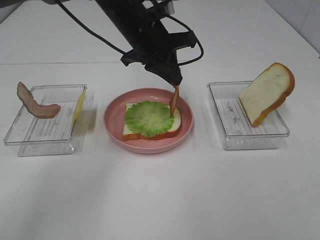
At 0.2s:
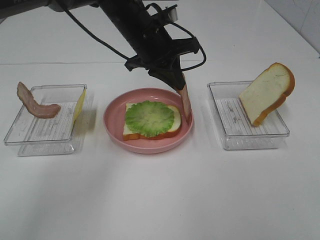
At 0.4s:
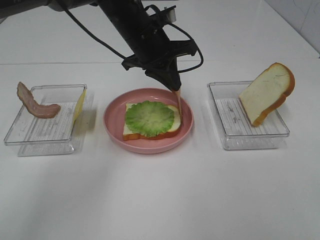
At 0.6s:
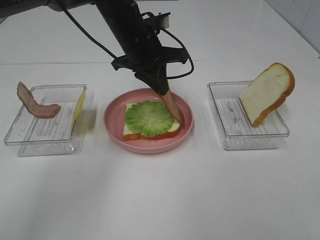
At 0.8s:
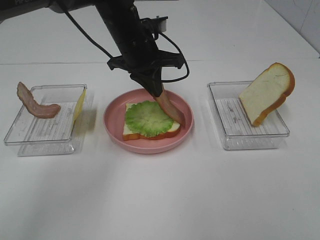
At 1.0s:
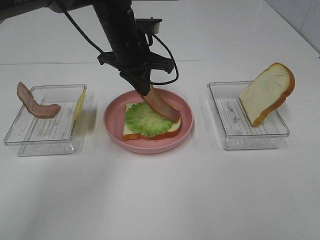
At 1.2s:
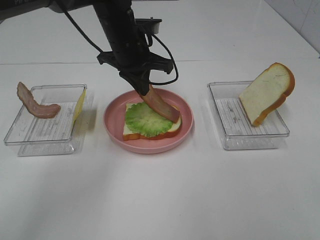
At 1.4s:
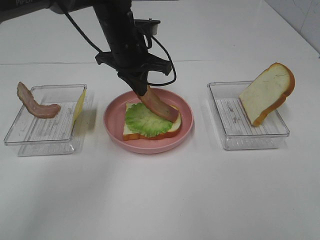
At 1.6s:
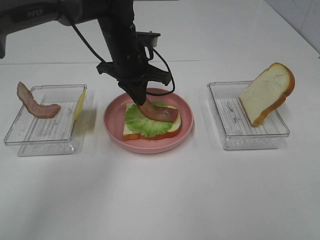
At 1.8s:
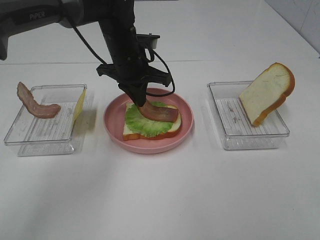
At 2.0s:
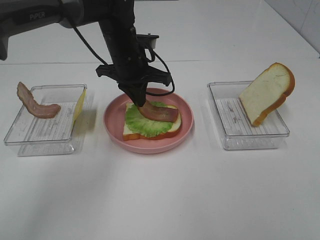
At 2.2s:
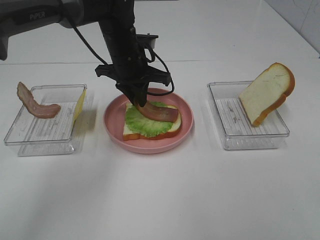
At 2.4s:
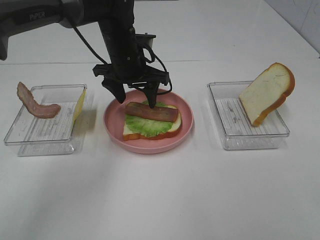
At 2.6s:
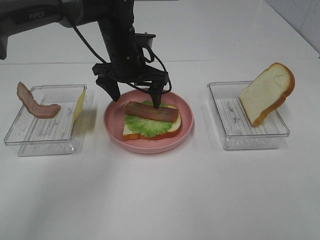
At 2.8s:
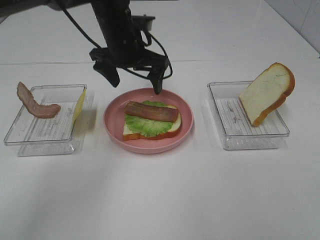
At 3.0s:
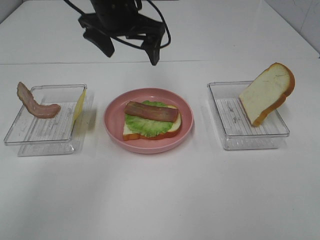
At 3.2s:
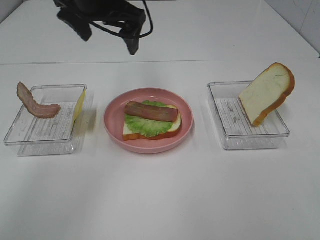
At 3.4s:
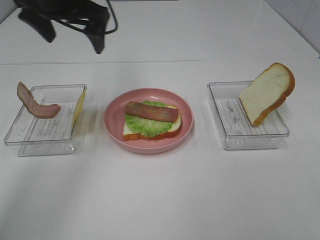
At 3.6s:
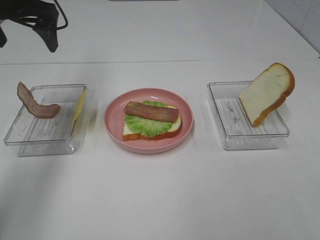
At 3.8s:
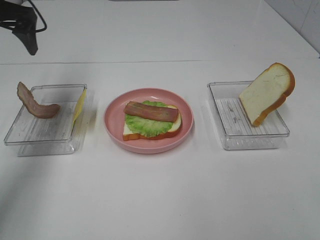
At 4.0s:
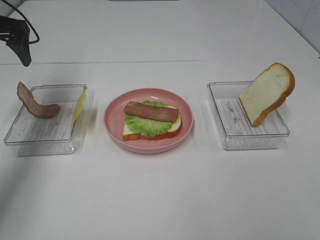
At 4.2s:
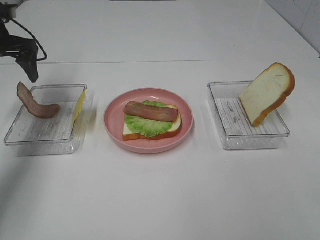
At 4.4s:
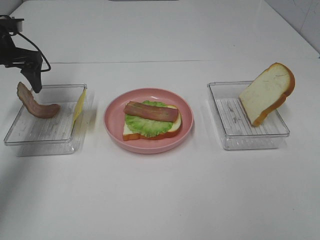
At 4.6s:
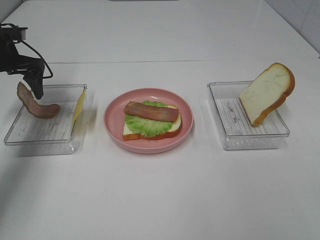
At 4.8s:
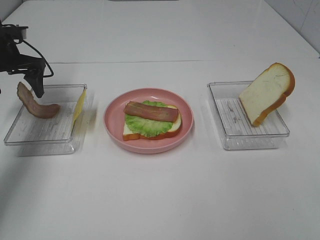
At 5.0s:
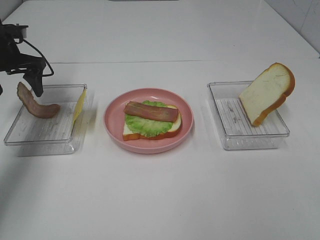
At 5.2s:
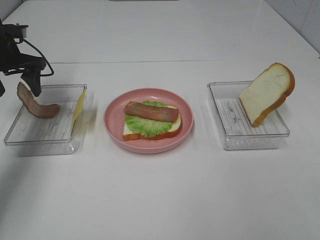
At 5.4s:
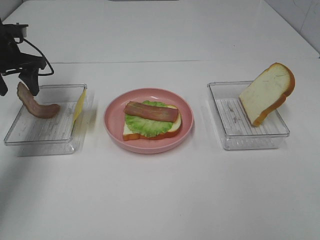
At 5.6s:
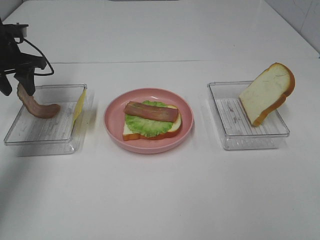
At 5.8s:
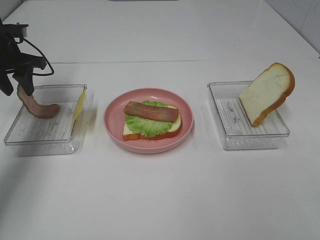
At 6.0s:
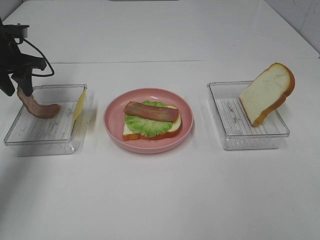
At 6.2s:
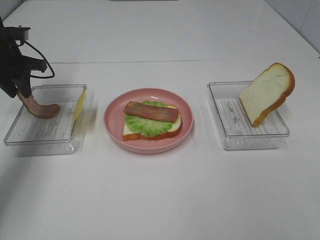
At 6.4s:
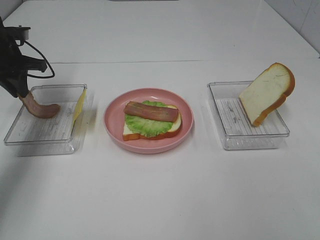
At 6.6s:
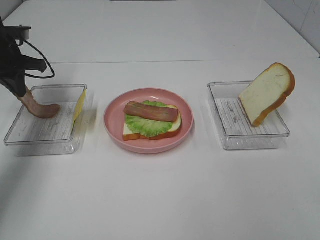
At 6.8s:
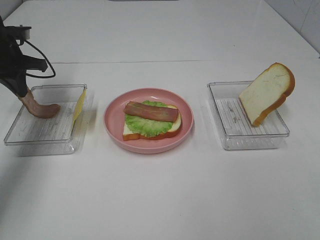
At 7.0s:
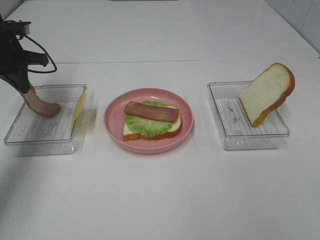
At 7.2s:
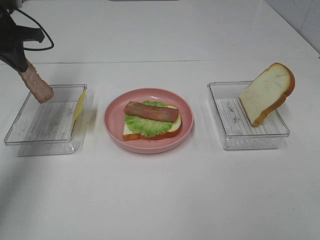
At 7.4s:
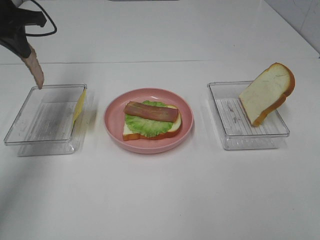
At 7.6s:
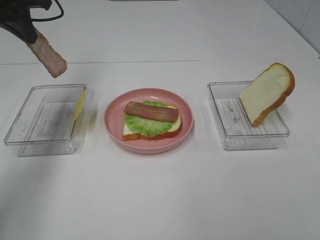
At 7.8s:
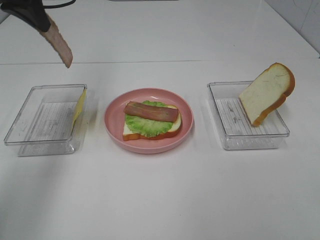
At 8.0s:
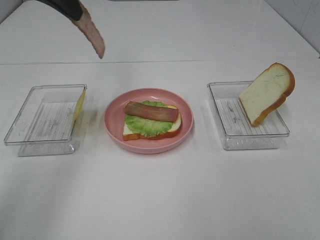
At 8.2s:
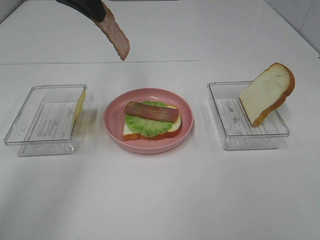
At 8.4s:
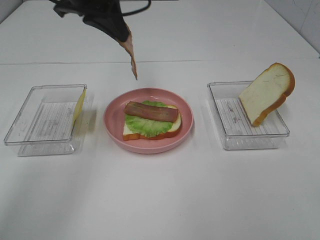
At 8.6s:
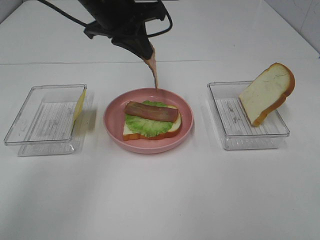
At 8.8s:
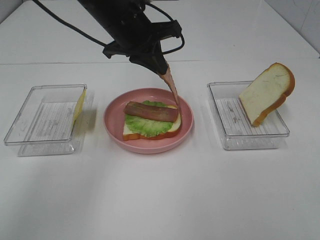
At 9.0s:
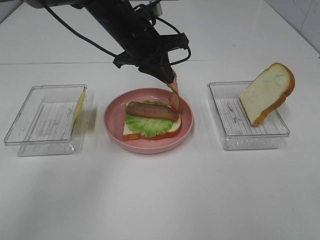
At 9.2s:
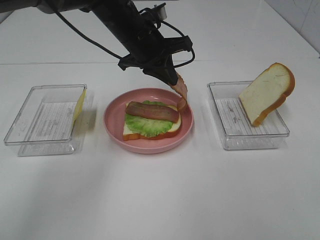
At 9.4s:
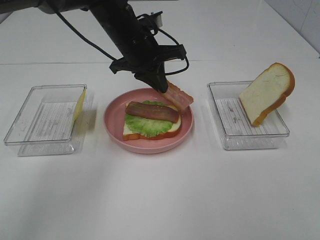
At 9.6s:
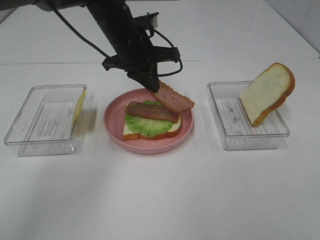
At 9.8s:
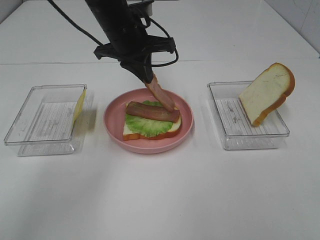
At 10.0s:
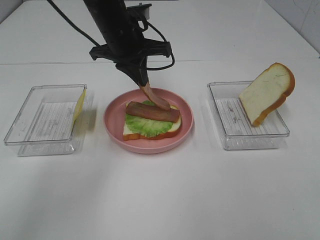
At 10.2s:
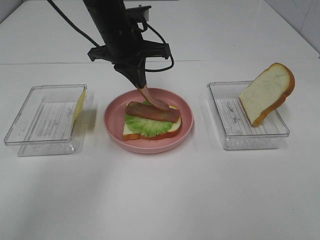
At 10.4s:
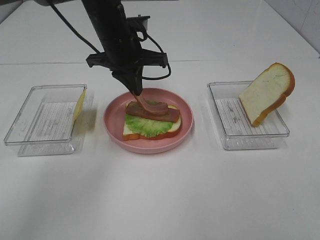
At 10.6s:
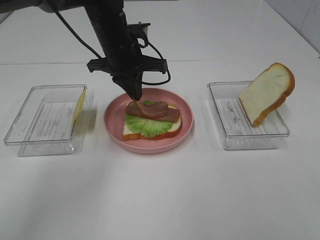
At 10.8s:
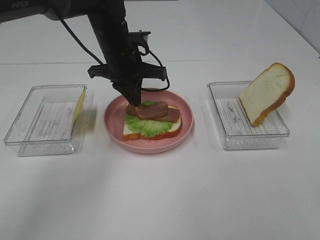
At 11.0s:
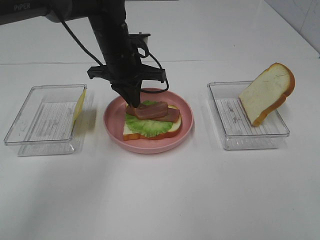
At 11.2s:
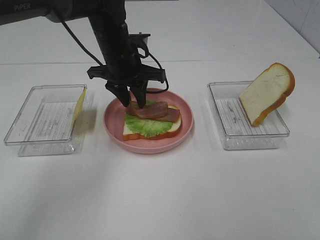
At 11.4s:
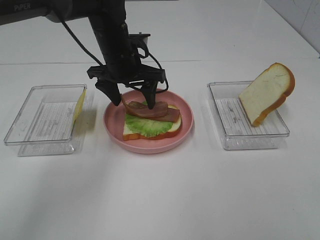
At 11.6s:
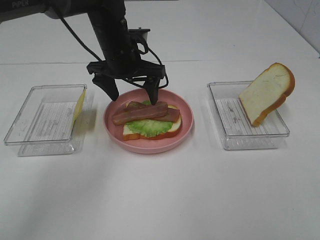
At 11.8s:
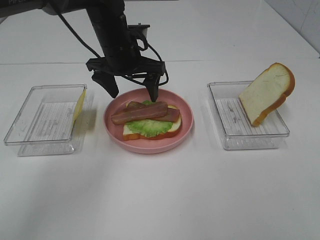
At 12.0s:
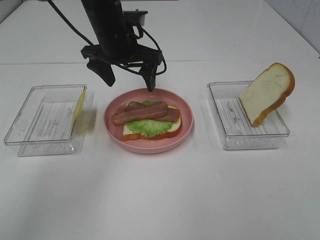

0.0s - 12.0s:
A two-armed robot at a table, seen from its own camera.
Task of the whole recording: Make sandwiches.
Step, 0.0s - 2.6s: Left hand:place bacon on lettuce slice.
Step, 2.8s - 6.6s: Left hand:grab the bacon.
Step, 6.8s - 11.8s: Left hand:place bacon on bacon.
0.0s - 1.6s: The left gripper moves approximately 5 cm.
1.6s - 3.0s: The left gripper shifts about 10 cm upward, and opens up.
3.0s - 4.4s: The left gripper moves to the left, about 25 cm.
4.4s - 6.0s: The left gripper closes up.
6.0s - 7.6s: The left gripper is displaced upward and to the right by some 15 cm, and closes.
7.6s - 9.0s: The left gripper moves to the right and downward, approximately 25 cm.
10.4s - 12.0s: The left gripper opens up.

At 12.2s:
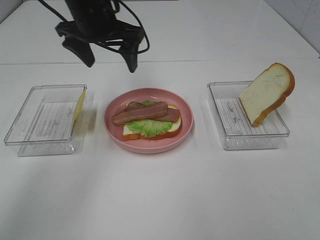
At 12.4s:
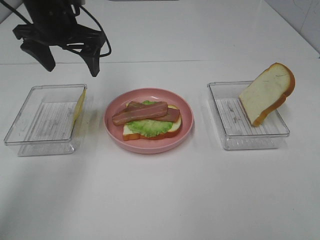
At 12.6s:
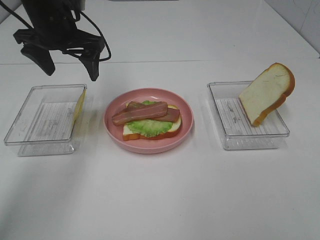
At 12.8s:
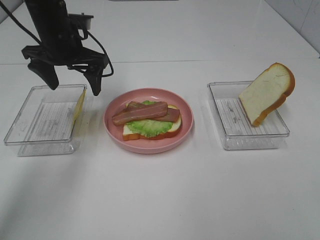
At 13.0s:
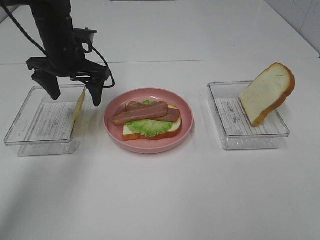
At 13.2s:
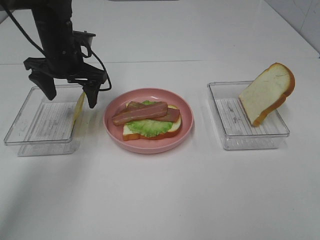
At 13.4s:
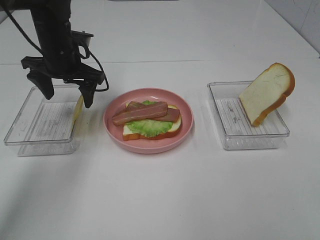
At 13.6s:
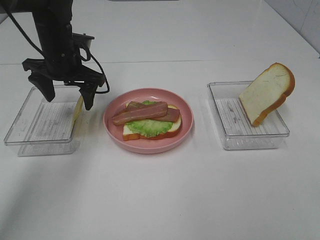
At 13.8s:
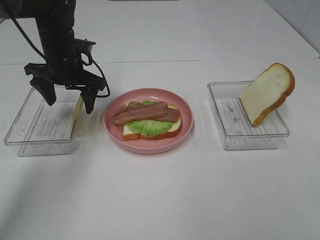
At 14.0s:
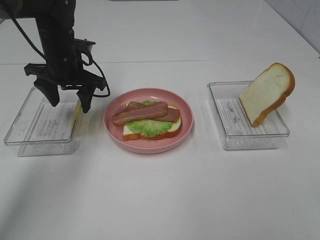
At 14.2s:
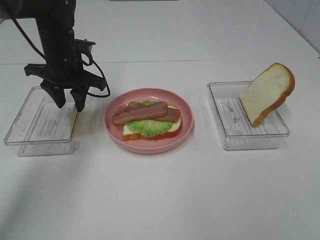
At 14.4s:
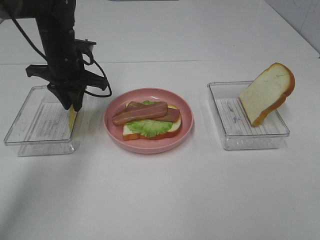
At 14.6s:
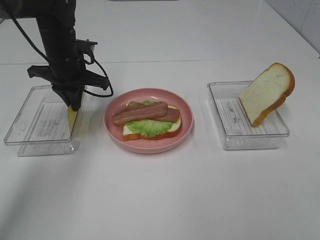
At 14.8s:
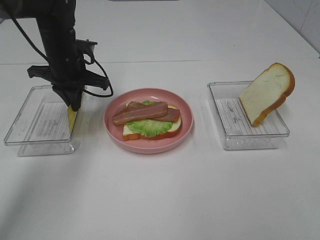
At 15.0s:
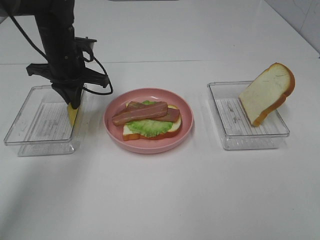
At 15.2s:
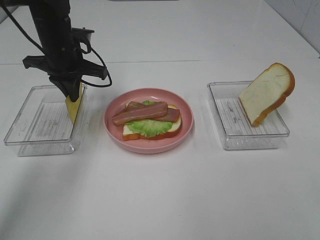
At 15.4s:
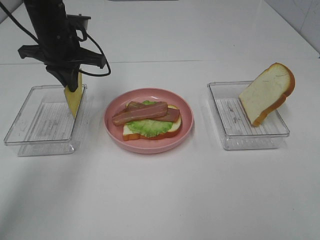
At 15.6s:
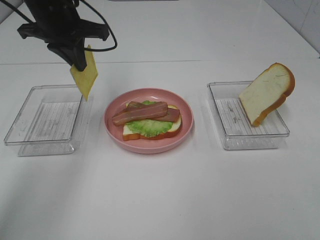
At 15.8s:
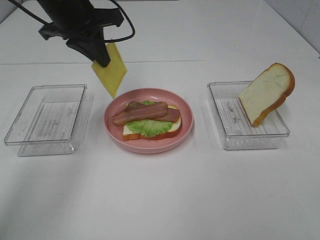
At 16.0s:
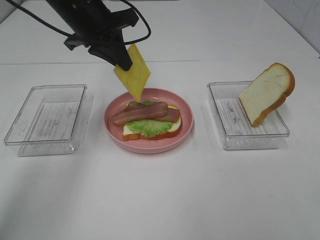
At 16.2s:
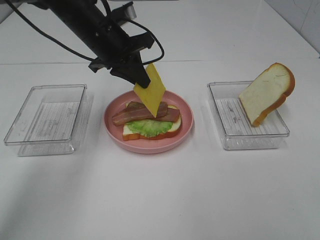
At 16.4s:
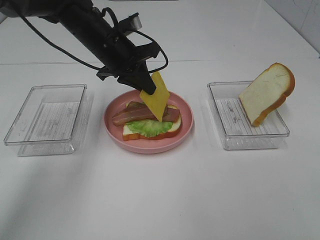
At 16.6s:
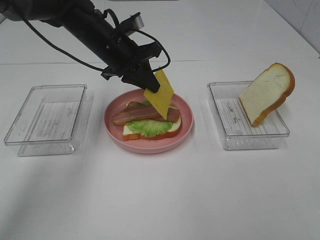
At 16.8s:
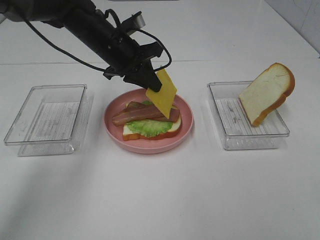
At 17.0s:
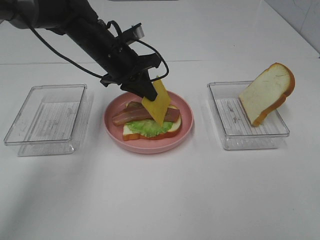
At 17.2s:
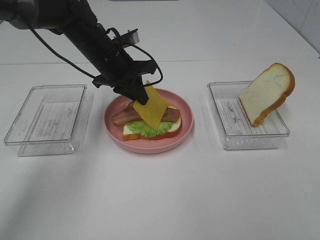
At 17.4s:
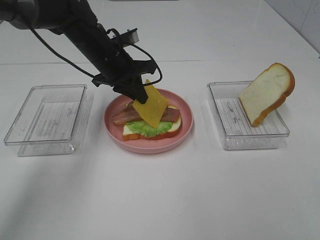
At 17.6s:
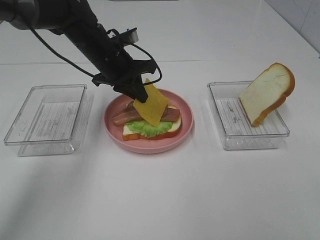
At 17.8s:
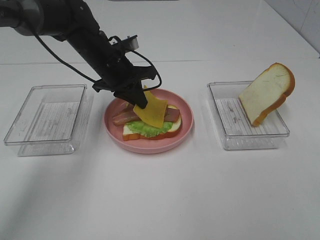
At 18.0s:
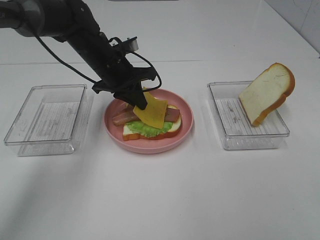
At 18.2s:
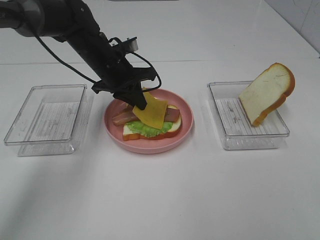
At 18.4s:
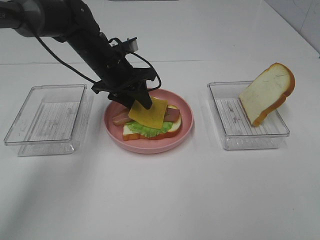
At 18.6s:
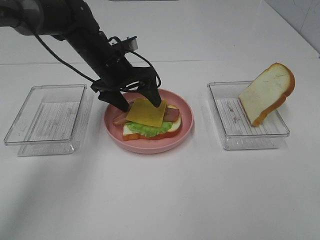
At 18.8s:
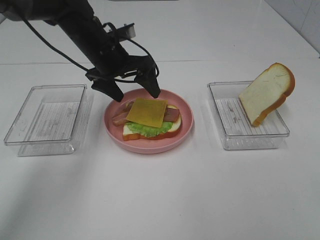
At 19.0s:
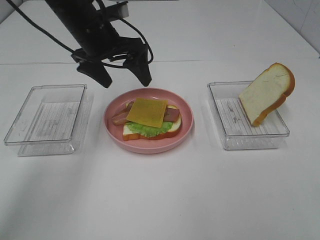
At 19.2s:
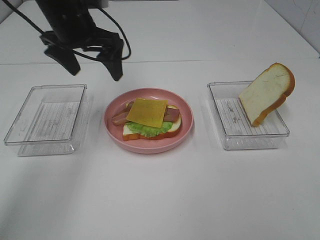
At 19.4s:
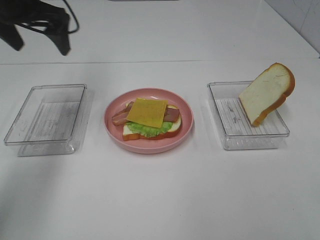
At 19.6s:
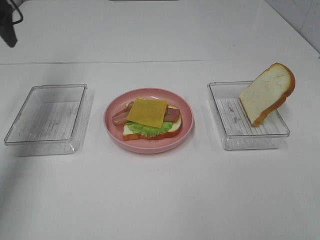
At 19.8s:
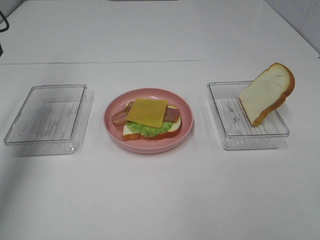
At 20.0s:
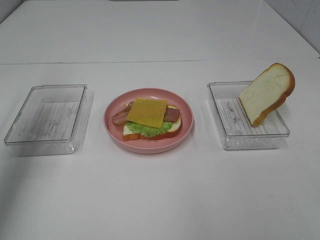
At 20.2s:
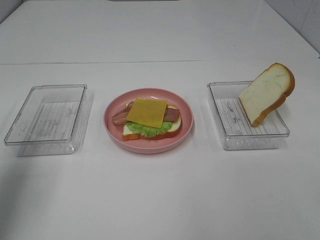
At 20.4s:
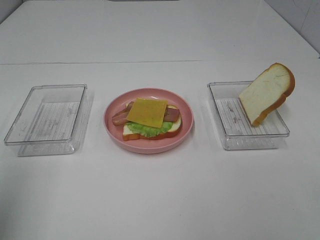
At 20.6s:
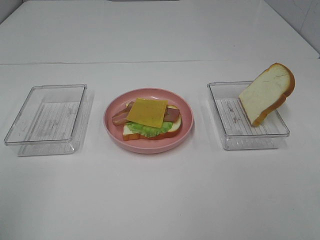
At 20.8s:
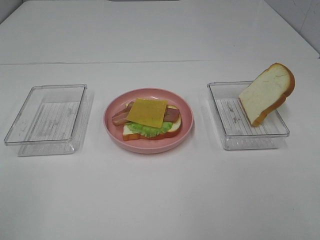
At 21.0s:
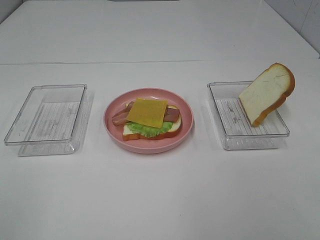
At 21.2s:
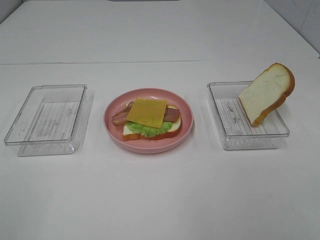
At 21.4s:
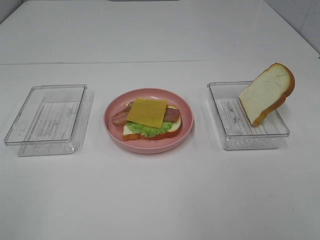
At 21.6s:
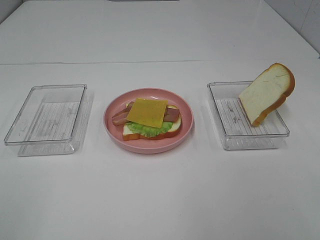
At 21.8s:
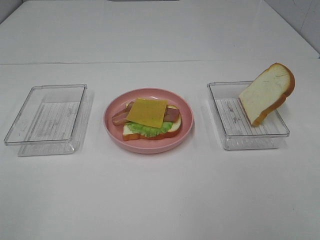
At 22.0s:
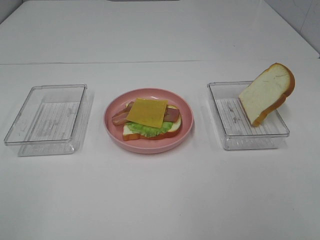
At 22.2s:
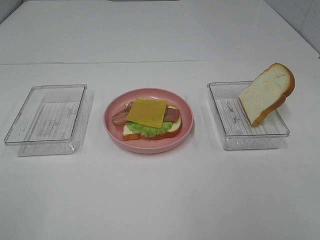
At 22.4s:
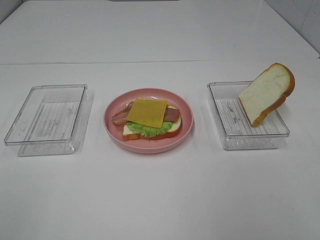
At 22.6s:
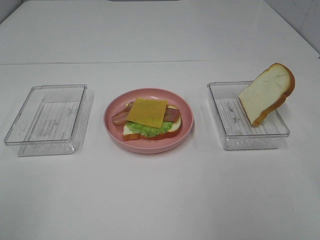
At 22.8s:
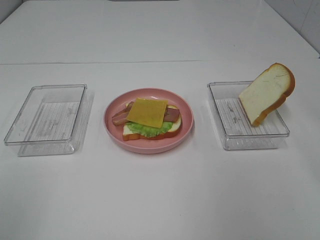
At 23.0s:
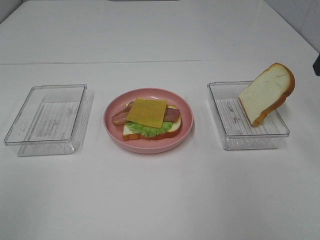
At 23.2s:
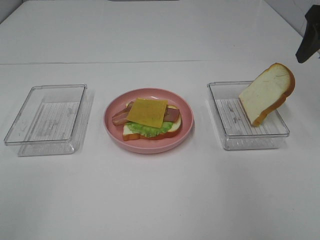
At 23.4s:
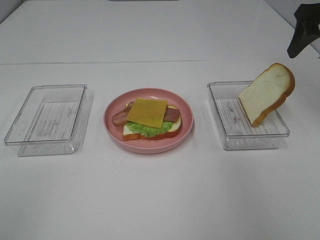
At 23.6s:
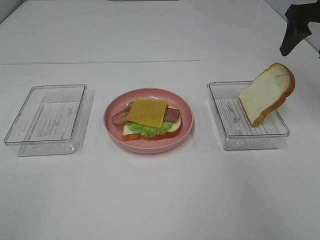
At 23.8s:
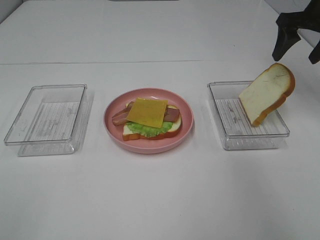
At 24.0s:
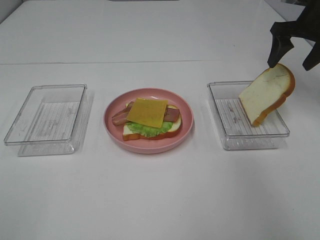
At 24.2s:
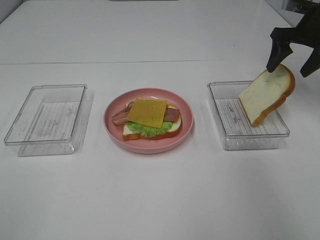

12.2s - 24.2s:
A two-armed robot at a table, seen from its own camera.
Task of the whole recording: Make sandwiches.
Step, 12.2s - 14.6s: Left hand:grab the cheese slice.
Step, 14.8s - 18.8s: Left hand:place the cheese slice on top of the bacon.
12.2s - 13.8s: The left gripper moves downward and to the left, about 10 cm.
13.8s - 15.2s: The left gripper closes its fingers.
15.2s - 16.6s: The left gripper goes some 10 cm to the right, and goes upward and returns, approximately 10 cm each way.
16.6s - 18.2s: The grippers move only a little.
18.2s - 19.8s: The left gripper goes about 30 cm to the left and upward, and opens up.
19.8s - 21.2s: The left gripper shifts approximately 35 cm backward.
22.6s - 24.2s: The right gripper heads forward, covering about 30 cm.
